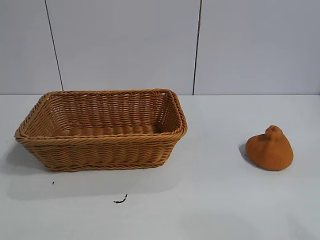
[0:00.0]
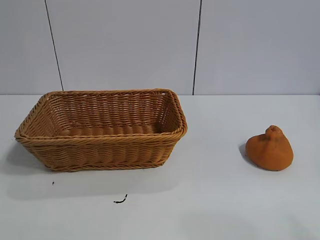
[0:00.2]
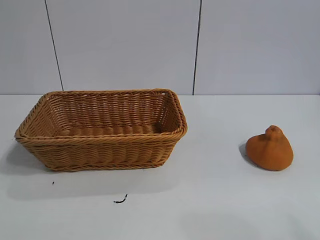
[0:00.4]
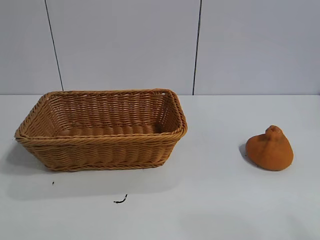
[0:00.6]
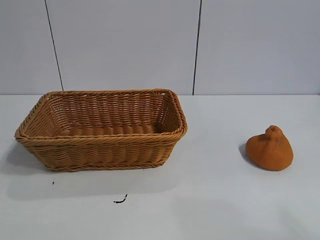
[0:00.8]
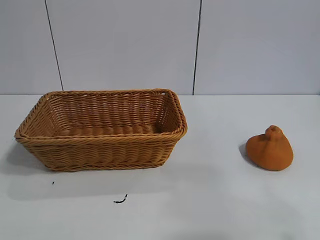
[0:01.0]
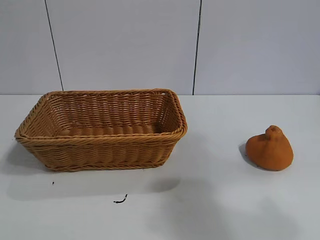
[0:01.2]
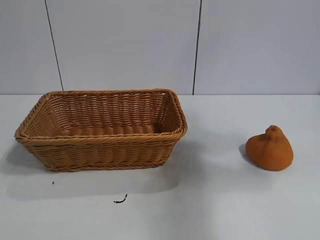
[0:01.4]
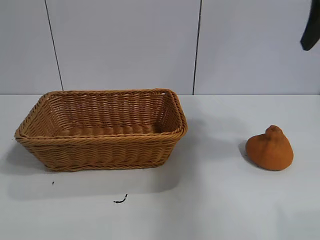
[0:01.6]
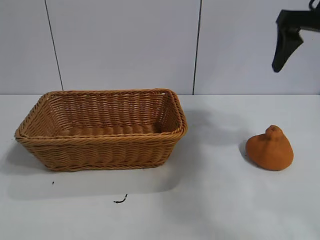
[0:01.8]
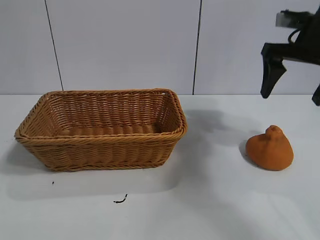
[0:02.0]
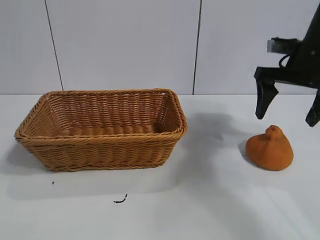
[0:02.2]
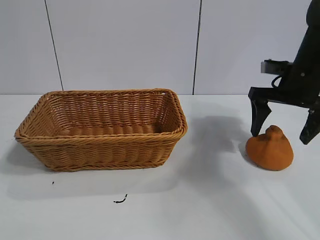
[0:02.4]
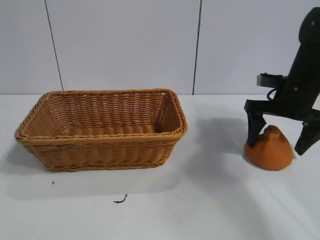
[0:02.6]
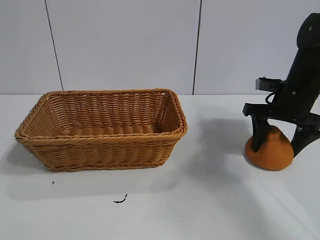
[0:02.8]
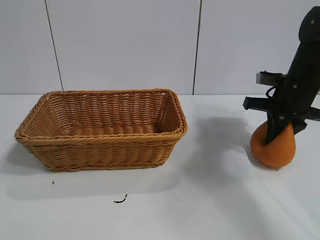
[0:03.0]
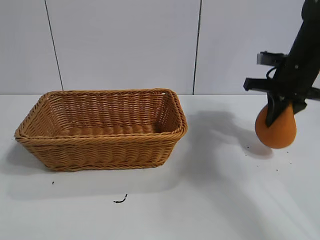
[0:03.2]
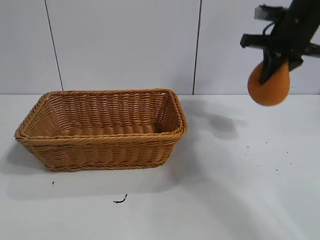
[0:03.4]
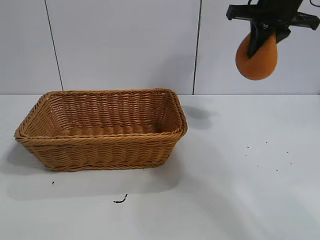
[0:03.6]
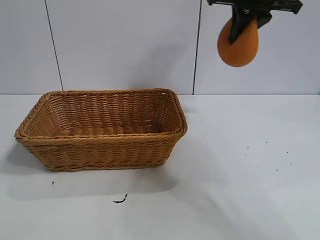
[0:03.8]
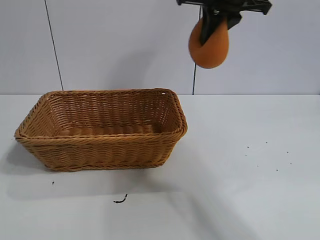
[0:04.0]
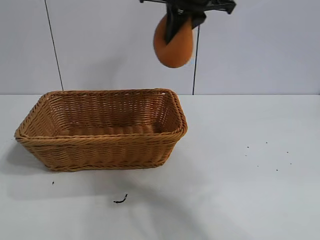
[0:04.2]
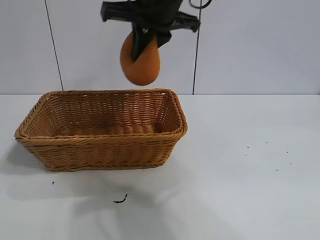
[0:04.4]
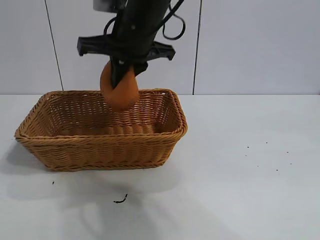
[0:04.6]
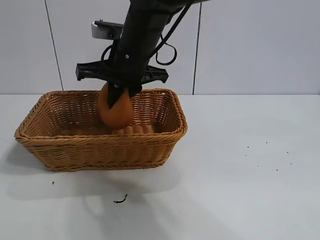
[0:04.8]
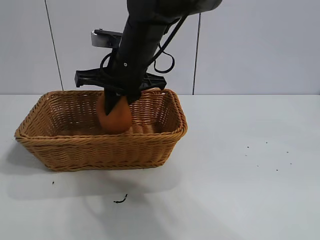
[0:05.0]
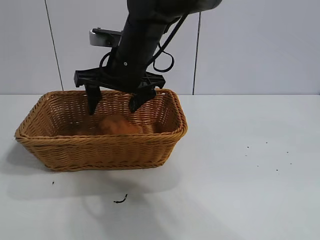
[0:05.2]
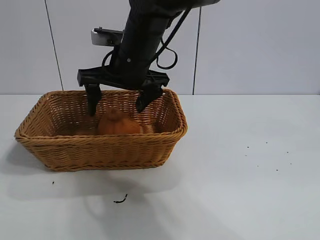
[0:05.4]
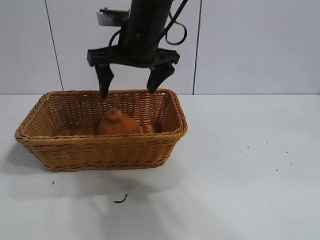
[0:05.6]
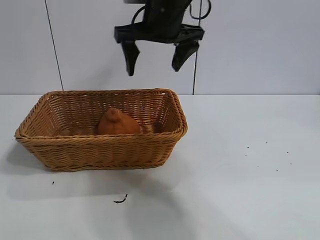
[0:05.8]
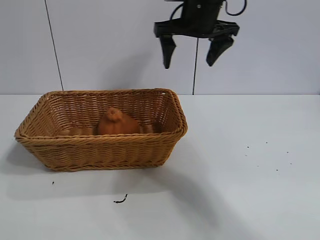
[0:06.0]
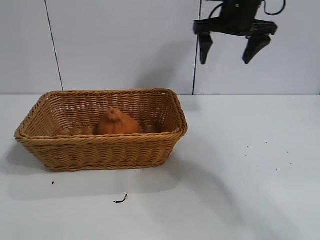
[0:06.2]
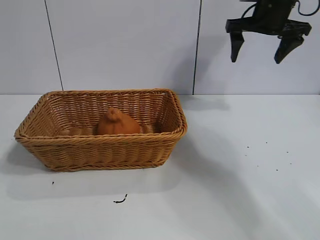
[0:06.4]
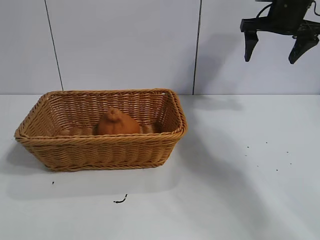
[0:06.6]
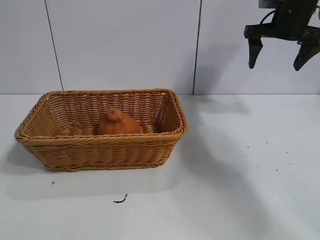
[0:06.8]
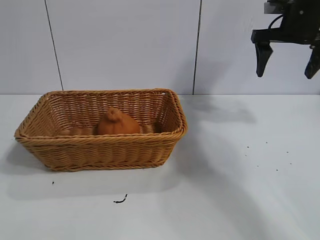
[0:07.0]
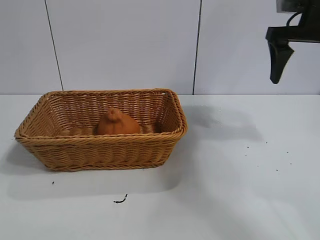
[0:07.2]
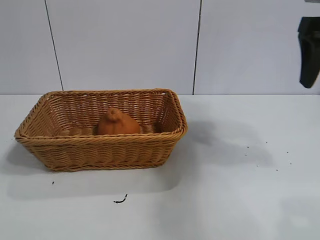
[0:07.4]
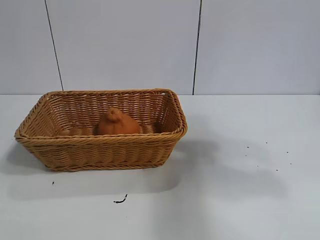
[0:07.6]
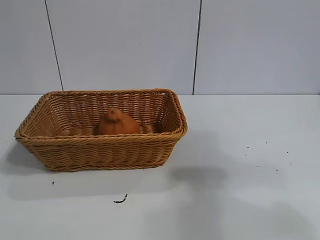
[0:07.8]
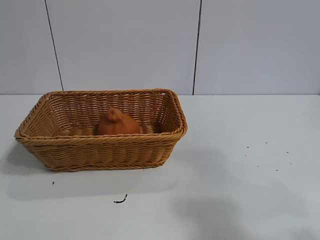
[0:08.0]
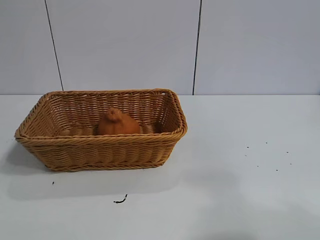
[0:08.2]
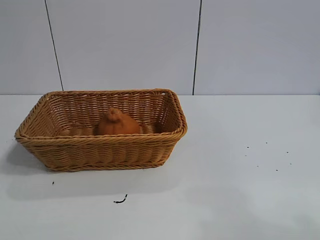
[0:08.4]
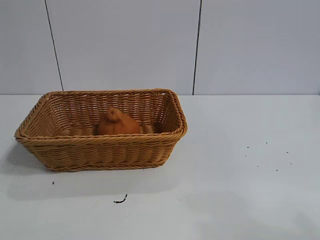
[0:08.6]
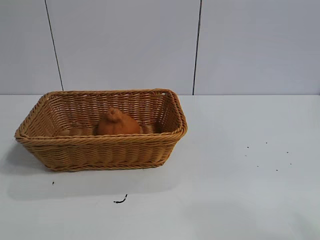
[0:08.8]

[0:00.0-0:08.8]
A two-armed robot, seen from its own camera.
Task of the whole recording: pick up the orange and put it into the basket.
Step, 0:00.8 to 0:02.8: Grasp the orange with right gripper.
Step, 0:03.2 to 0:05.2: Place the orange in the basket with right gripper.
